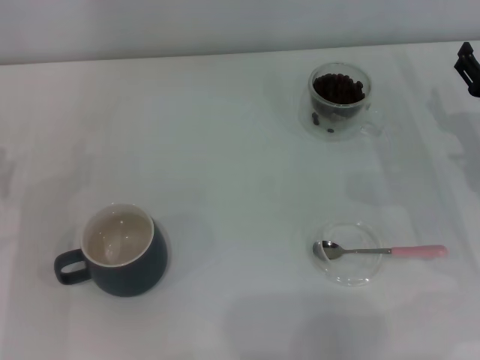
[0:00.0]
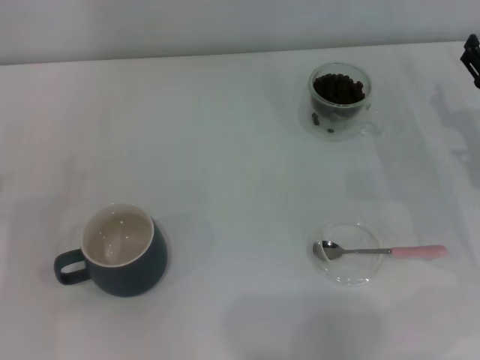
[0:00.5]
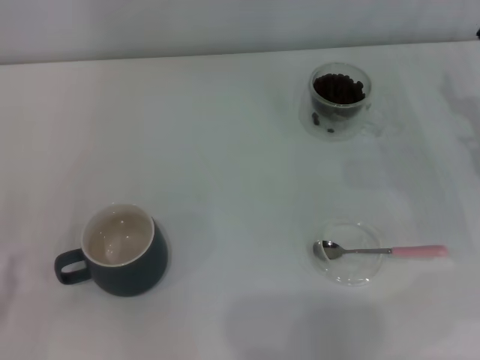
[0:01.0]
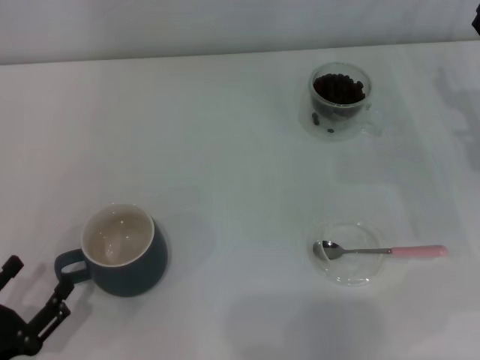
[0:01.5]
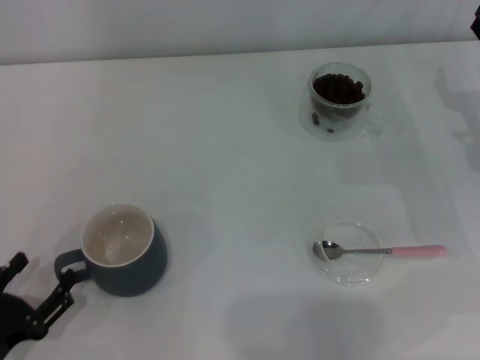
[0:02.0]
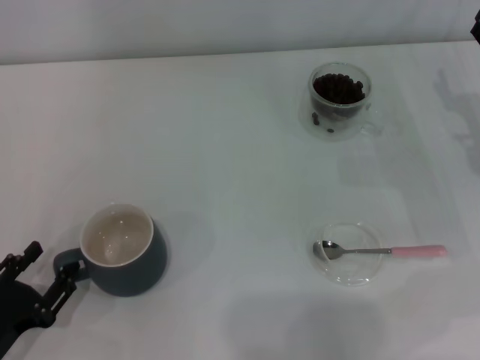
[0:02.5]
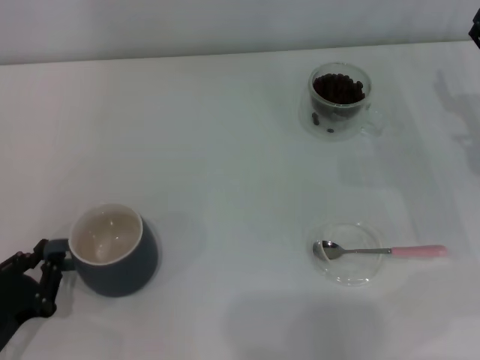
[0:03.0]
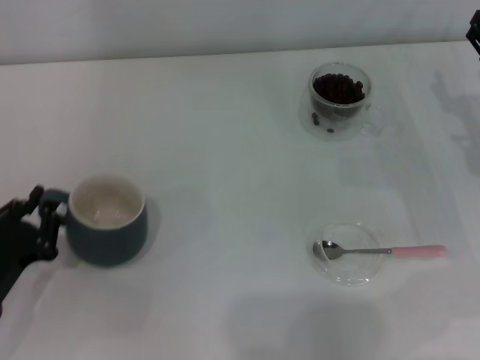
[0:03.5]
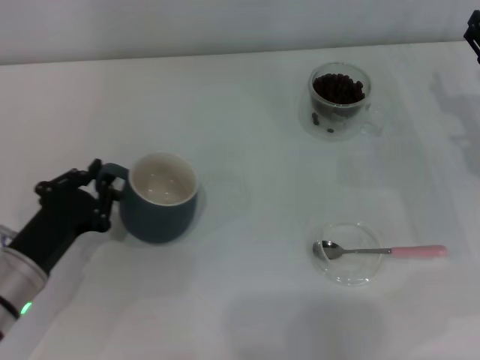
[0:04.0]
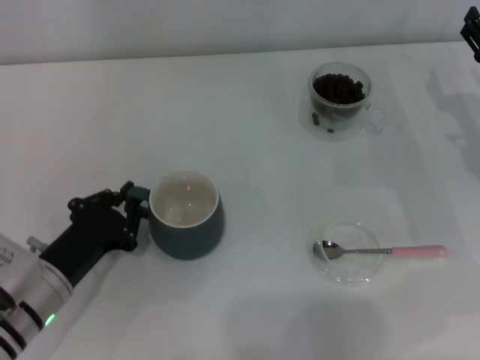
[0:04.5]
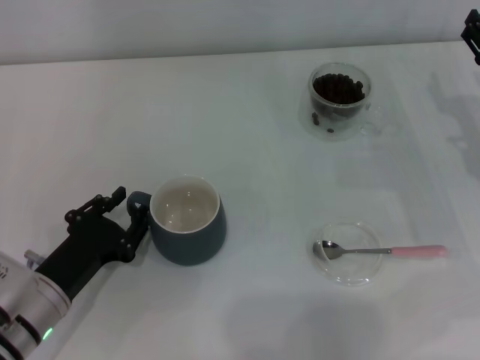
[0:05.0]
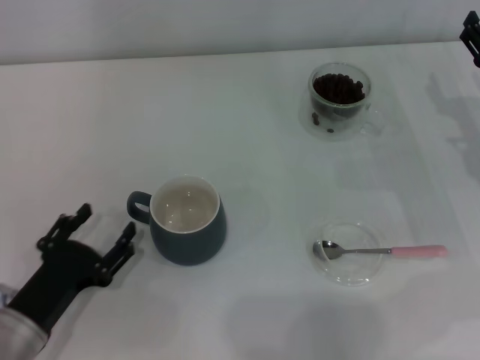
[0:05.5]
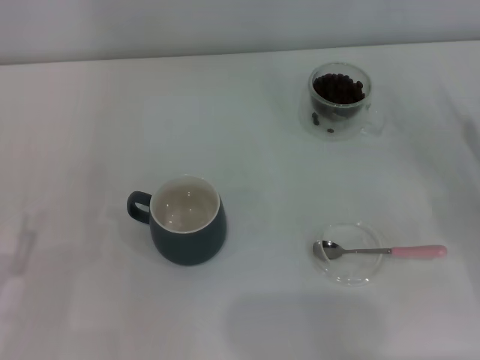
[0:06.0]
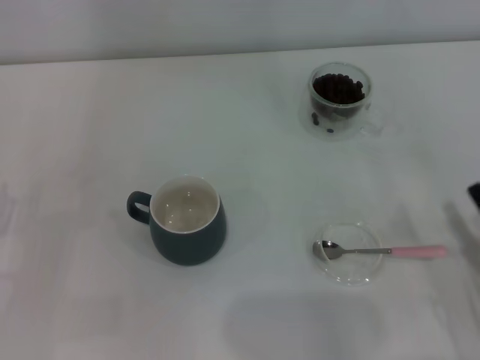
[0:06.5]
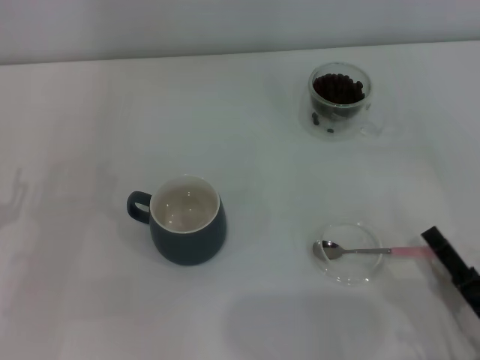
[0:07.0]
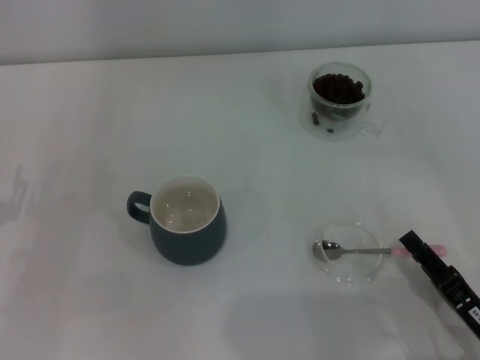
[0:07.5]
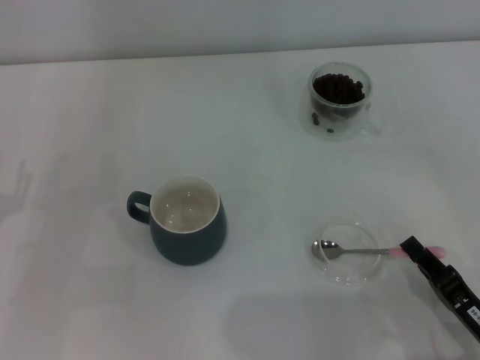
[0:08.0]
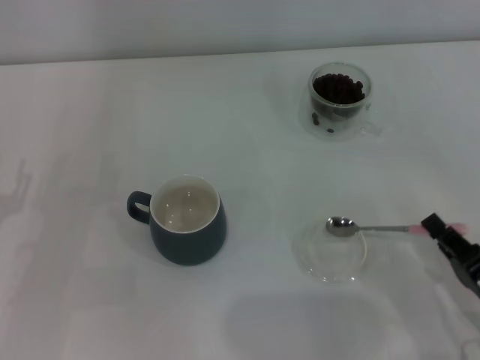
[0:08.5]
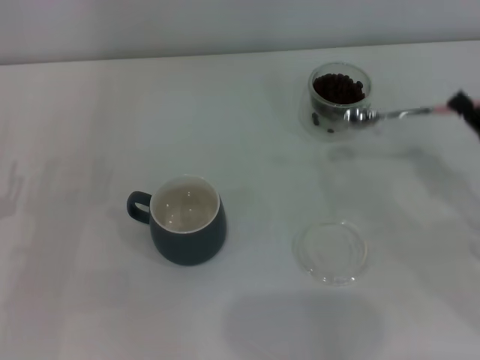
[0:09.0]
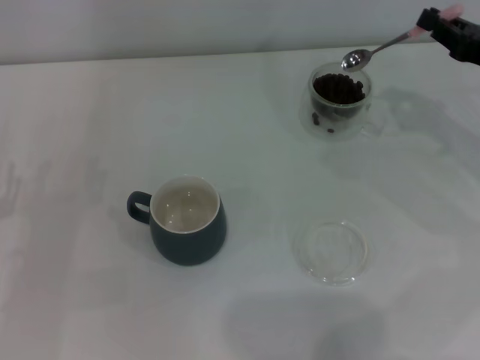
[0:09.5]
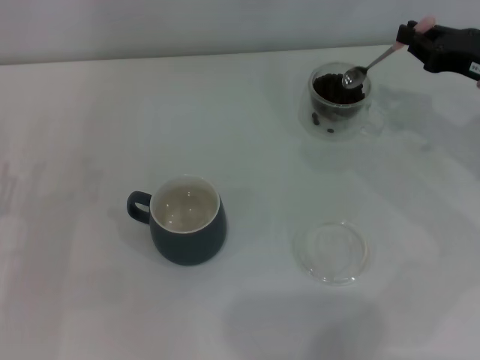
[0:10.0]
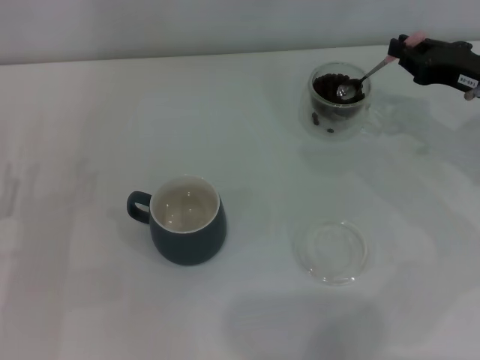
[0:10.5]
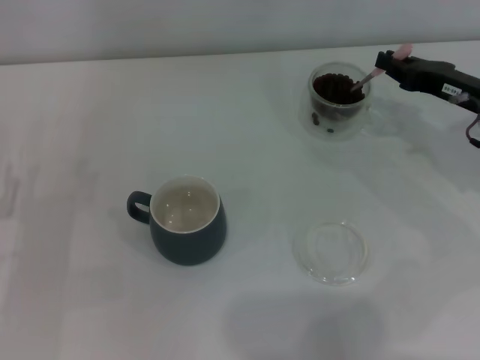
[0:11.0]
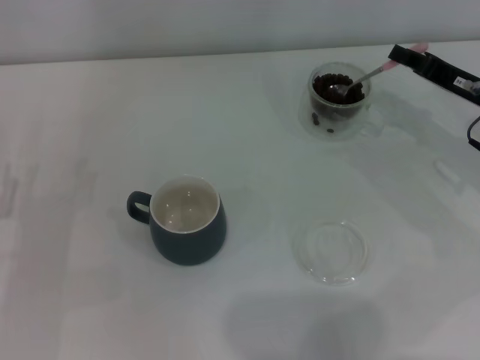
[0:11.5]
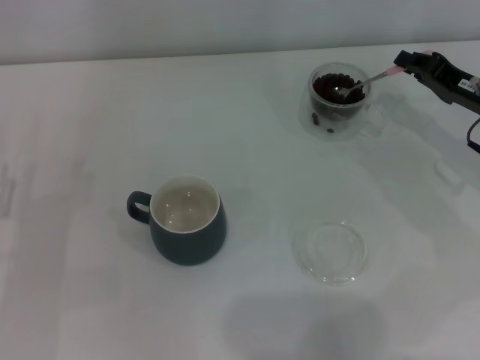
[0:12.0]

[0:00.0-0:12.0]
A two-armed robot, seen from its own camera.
Task of the whole recording: Use a pink spoon to take out the coffee beans from the glass and pour them into the gray cup.
Step, 0:00.0 to 0:05.5: Move the cup to the center of view with the left gripper.
Step, 0:06.0 to 0:08.5: Pick up the spoon with the right gripper.
0:00.0 to 0:02.0: The left gripper goes roughly 10 cm backward.
0:02.0 to 0:04.0: The left gripper moves forward and to the right, some 10 cm, and closes its fingers.
0:04.0 to 0:06.0: The right gripper is displaced backward by about 10 cm. Meanwhile the left gripper heads backward and to the left, covering roughly 10 cm, and opens up.
0:06.0 to 0:08.0: The right gripper moves backward and to the left, roughly 20 cm, and closes its fingers.
0:08.0 to 0:10.0: The right gripper shifts roughly 25 cm forward and upward.

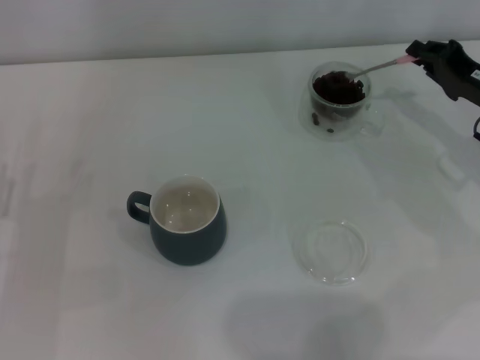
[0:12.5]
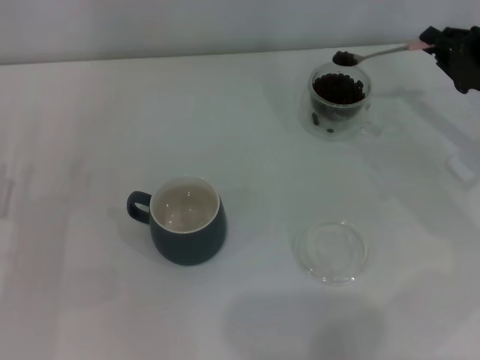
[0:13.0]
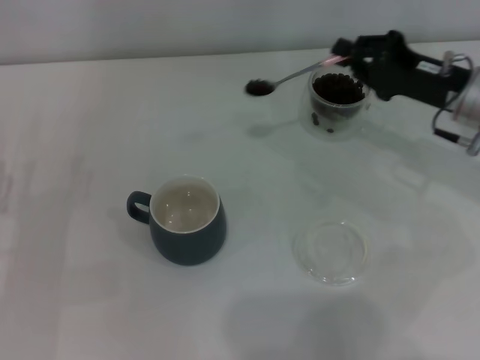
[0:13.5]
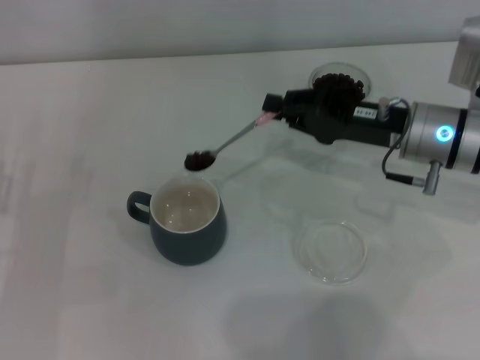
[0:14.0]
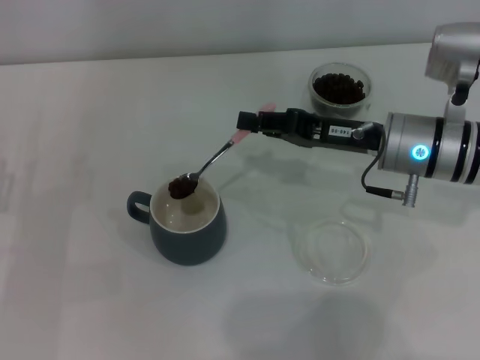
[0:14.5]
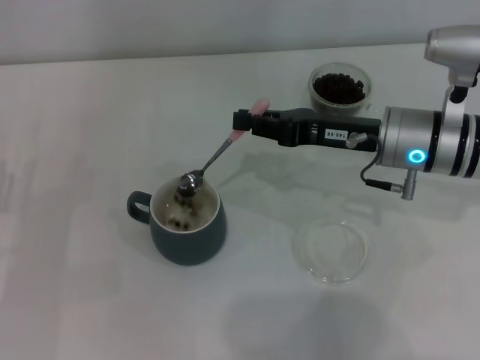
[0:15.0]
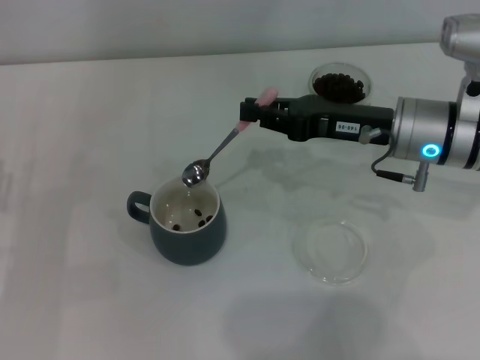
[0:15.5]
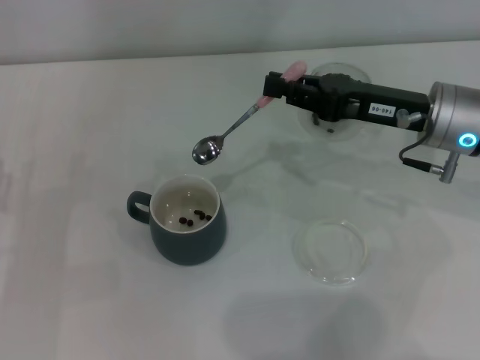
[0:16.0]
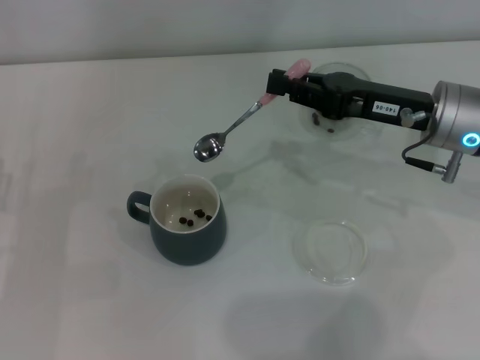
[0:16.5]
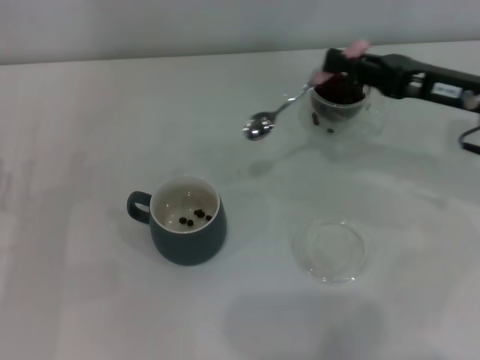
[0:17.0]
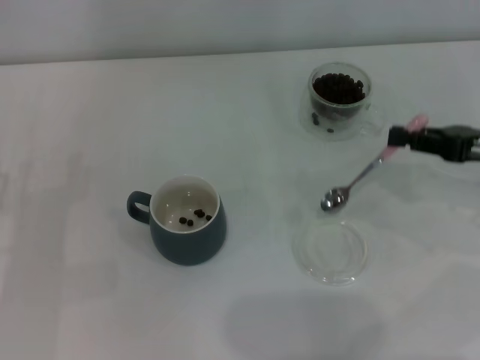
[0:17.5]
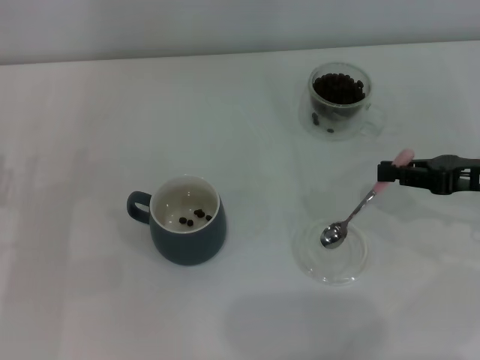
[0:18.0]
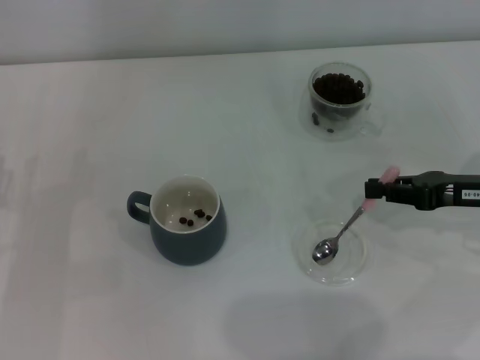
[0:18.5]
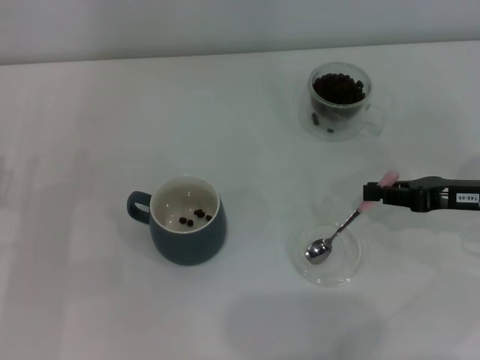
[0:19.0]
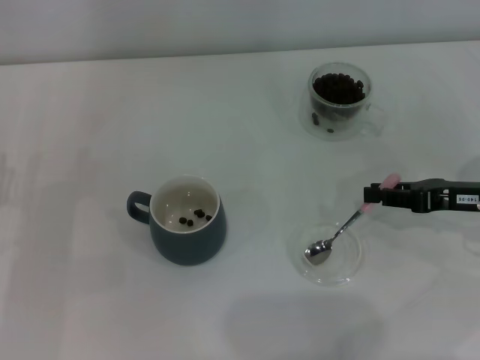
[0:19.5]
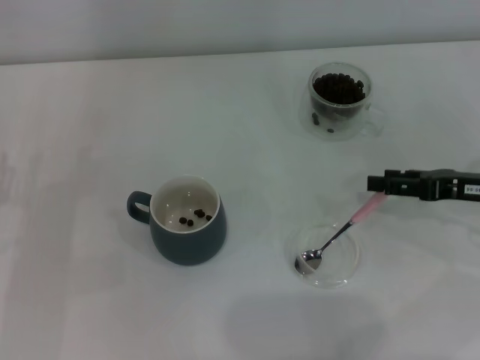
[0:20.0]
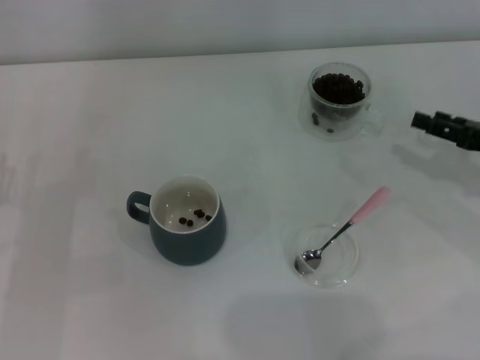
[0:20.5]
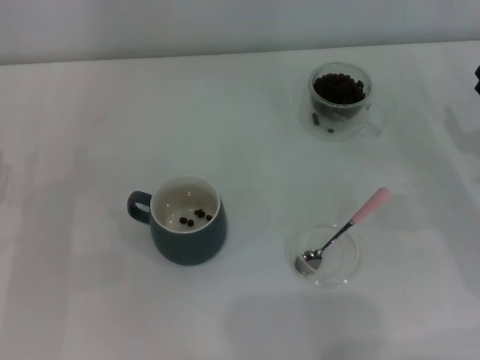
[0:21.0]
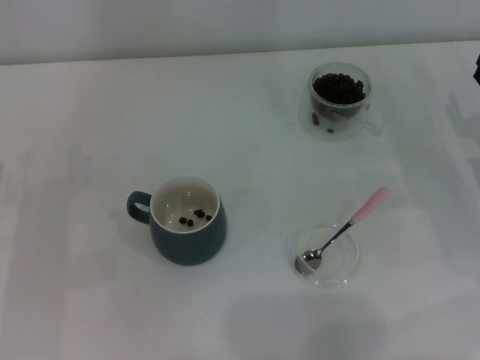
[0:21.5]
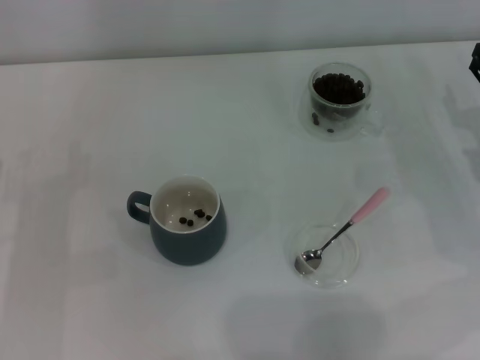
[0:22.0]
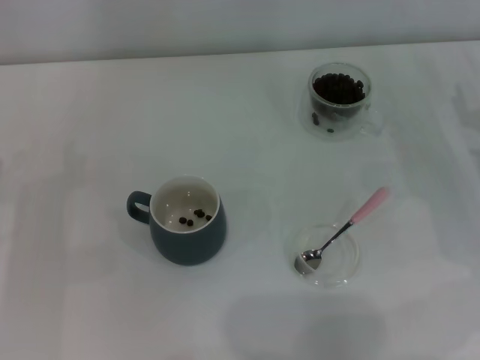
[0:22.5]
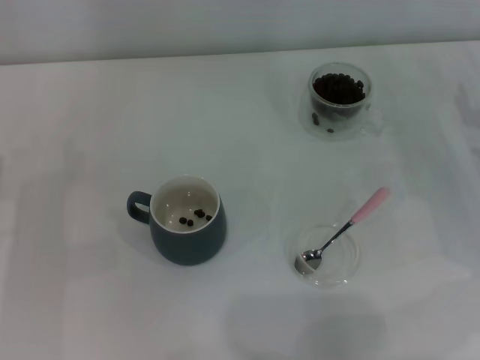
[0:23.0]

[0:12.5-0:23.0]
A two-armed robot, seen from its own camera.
Task of the whole recording: Use a pink spoon to take out the coffee beans from the glass and pour them into the gray cup.
Step, 0:12.5 to 0:15.5: Scoop a spoonful of beans into the cup with the right gripper.
Step, 0:16.0 to 0:20.0: Place the spoon back in its original place with the right gripper.
0:12.5 to 0:14.5: The right gripper goes some 15 cm to the left.
0:16.5 to 0:19.0: The right gripper is displaced to the right and downward by roughly 10 cm.
0:19.0 to 0:21.0: The right gripper opens its fingers.
